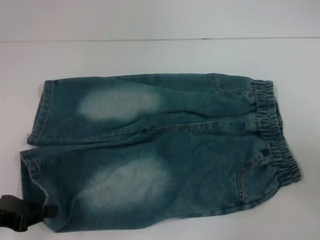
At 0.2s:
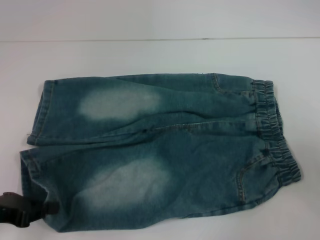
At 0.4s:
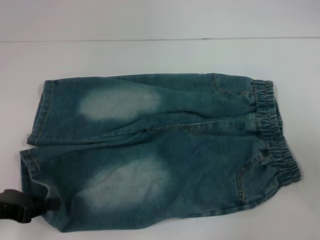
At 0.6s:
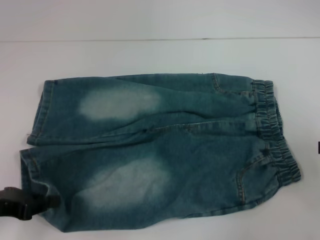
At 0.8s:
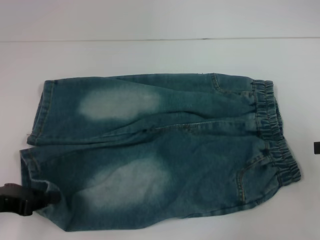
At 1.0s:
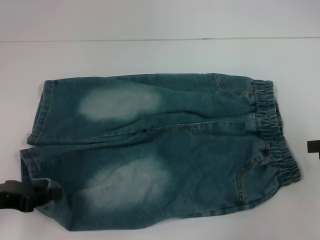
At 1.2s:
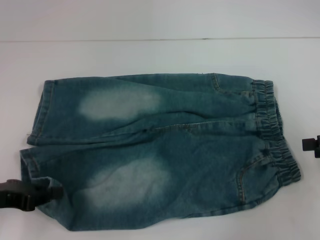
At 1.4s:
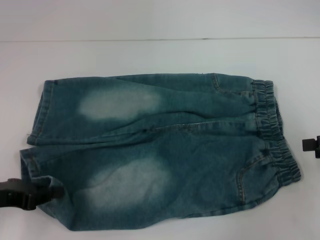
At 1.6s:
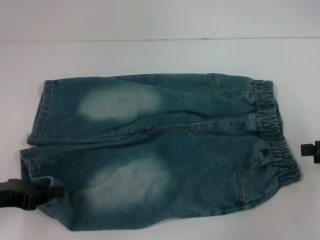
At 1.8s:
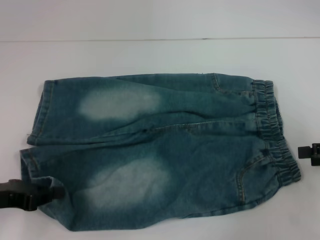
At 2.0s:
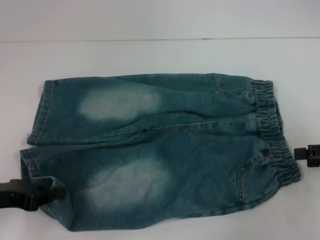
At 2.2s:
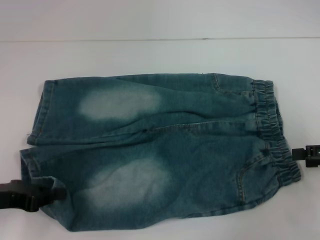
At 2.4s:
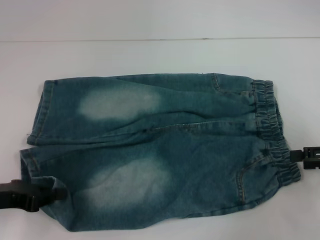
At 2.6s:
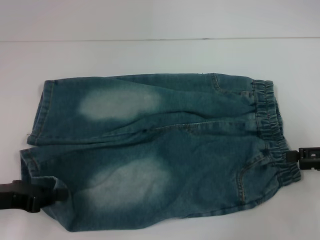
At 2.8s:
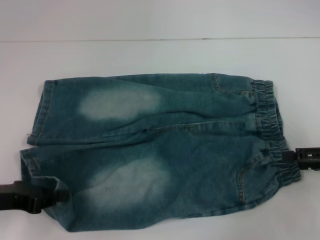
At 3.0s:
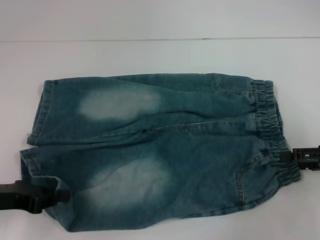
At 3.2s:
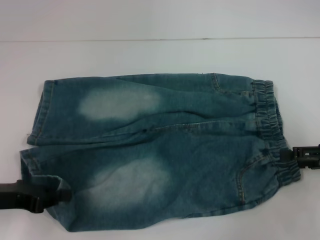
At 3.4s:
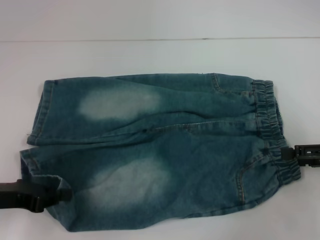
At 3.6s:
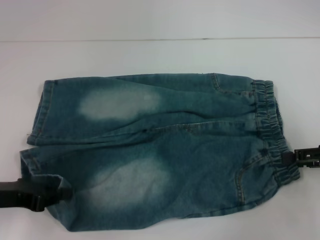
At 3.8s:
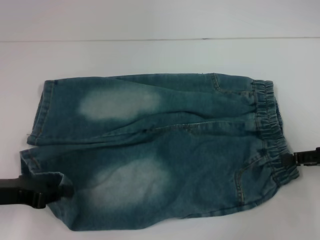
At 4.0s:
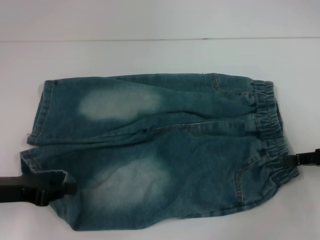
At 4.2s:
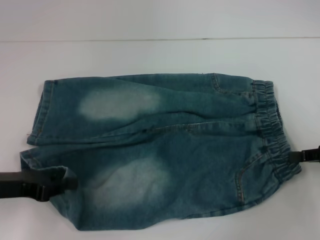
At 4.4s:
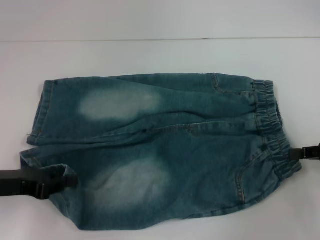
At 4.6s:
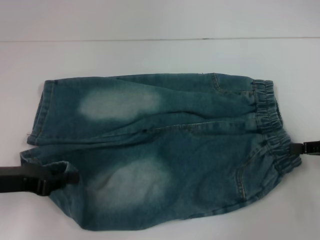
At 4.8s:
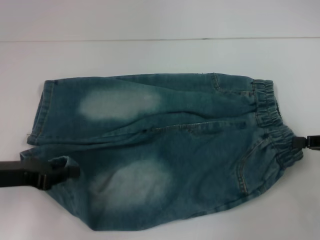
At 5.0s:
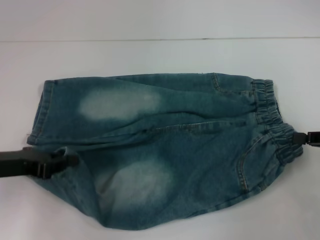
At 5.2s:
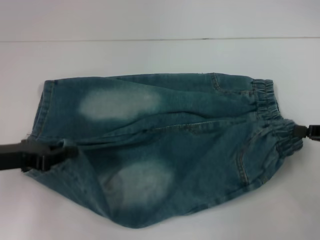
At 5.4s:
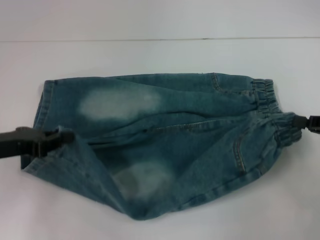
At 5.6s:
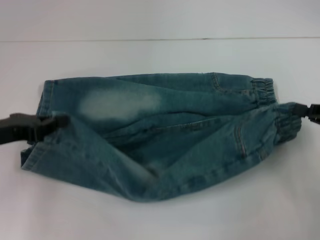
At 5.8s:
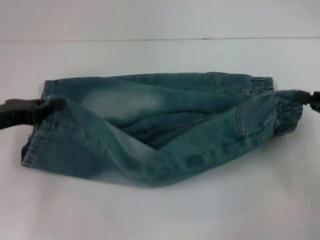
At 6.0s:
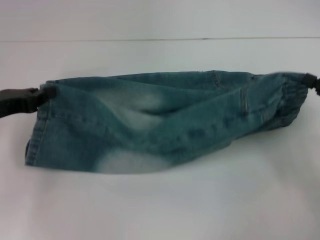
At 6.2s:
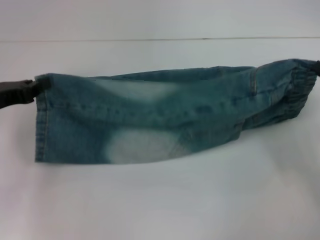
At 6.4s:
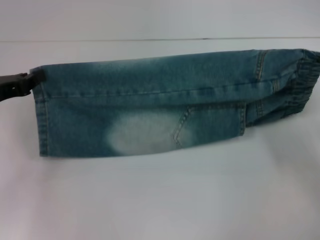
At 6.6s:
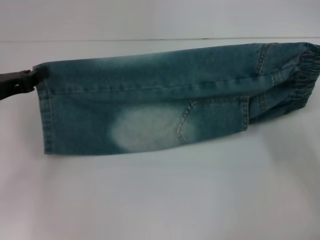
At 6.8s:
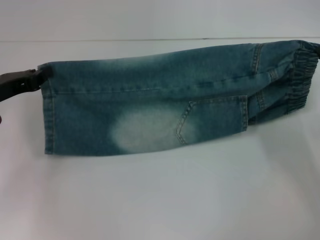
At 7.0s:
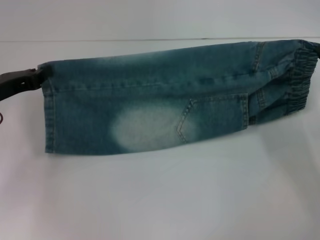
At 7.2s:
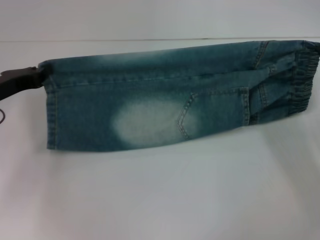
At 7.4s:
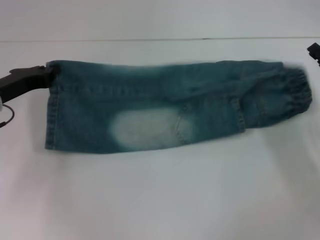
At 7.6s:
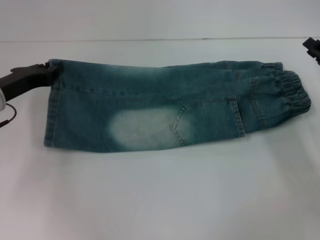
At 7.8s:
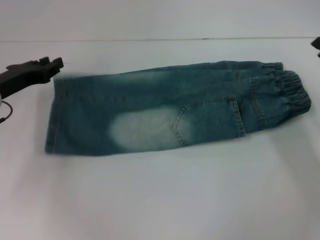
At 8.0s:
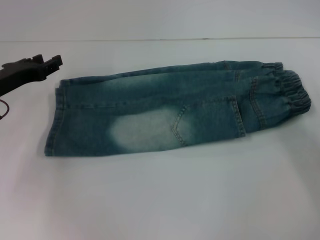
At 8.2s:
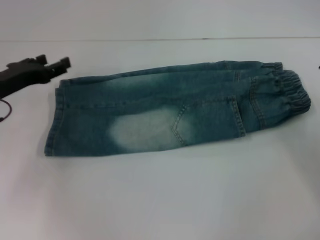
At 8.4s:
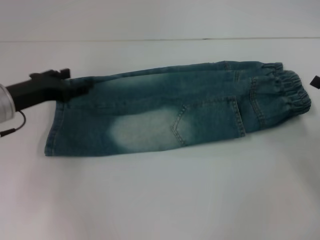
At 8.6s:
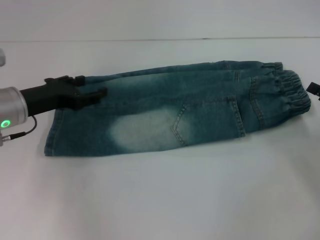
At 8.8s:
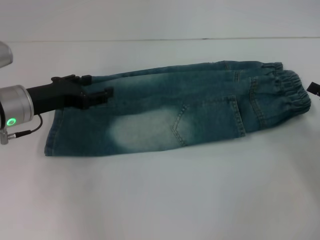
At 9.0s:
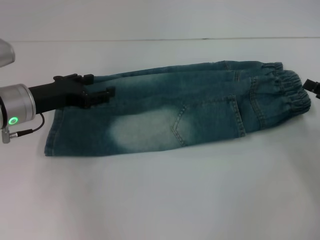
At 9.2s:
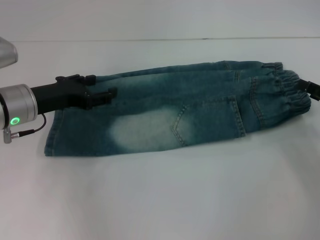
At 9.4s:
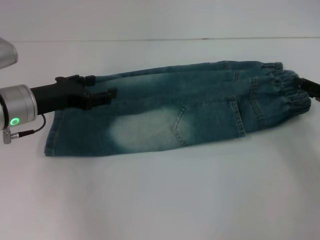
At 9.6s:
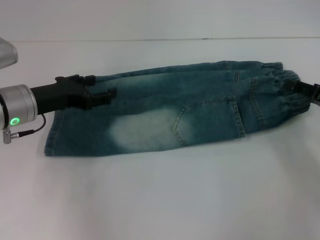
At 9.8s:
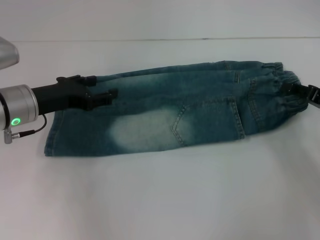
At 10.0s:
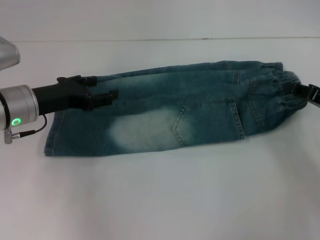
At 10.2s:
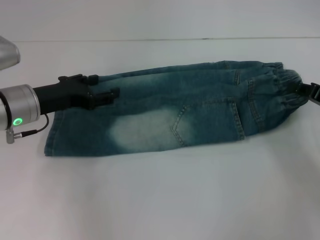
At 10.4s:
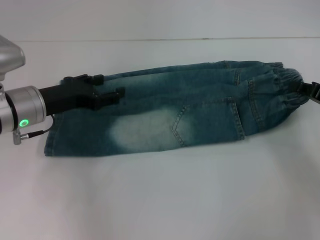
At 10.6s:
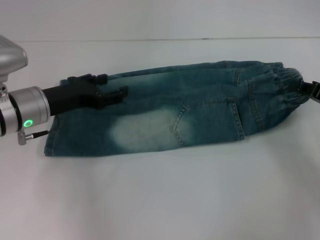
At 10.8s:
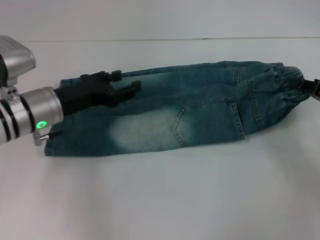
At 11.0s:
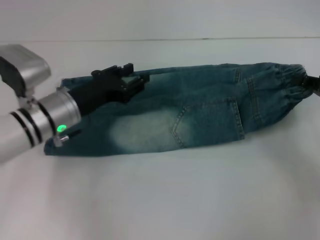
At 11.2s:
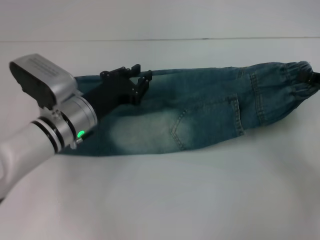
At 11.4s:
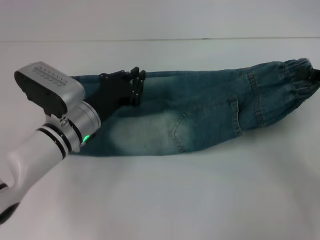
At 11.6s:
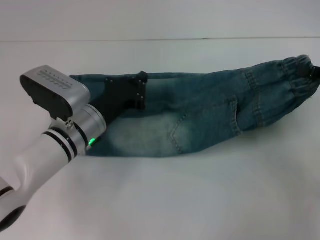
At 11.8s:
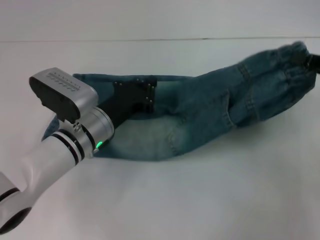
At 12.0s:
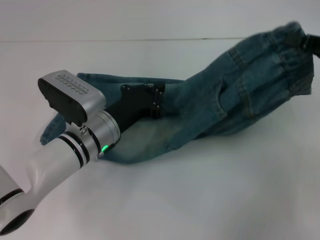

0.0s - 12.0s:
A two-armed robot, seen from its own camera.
Step, 0.0s - 3.8s: Hold the lower right waistband with your right hand.
Step, 4.0s - 7.2s: Fold upward with your right hand.
Step, 7.6s - 7.8s: Fold upward with your left hand.
Step, 8.0s - 10.0s: Grab the waistband with your right hand.
0.0s - 1.6s: The grippers move only a little.
1.6s - 3.0s: The grippers move only a little.
3.0s - 4.4s: The right gripper closes up.
4.4s - 6.0s: The left gripper heads forward, covering some 5 cm.
6.0s - 7.6s: Both grippers move forward, about 5 cm.
7.6s - 9.0s: The left gripper opens its fingers. The right gripper ends up some 5 cm from where it was, and opens.
9.0s - 10.4s: The right gripper closes its fingers.
10.4s - 12.0s: The left gripper travels to the right and downward by about 10 cm, and closes its fingers; the right gripper travels upward by about 10 cm.

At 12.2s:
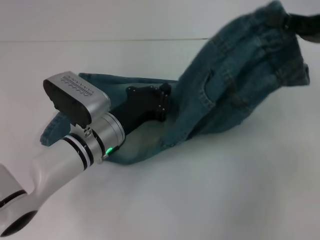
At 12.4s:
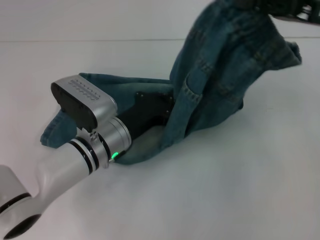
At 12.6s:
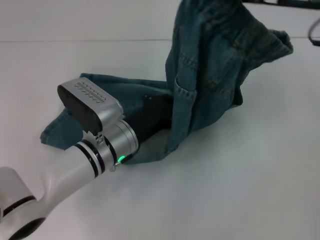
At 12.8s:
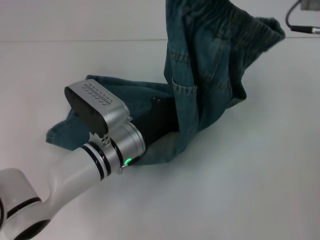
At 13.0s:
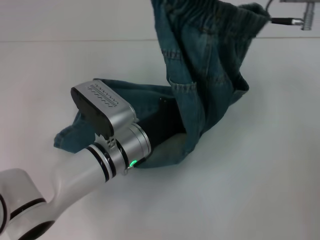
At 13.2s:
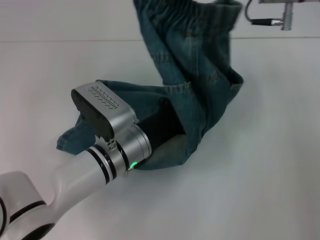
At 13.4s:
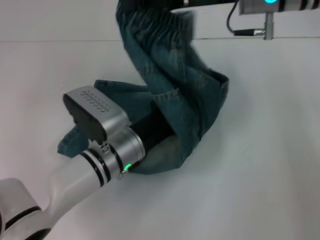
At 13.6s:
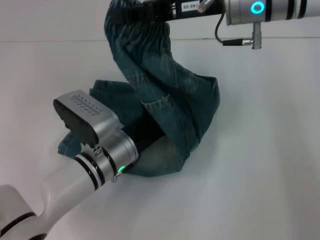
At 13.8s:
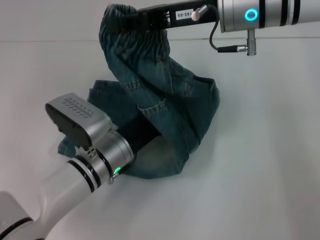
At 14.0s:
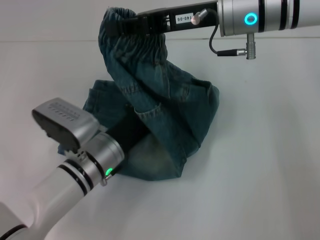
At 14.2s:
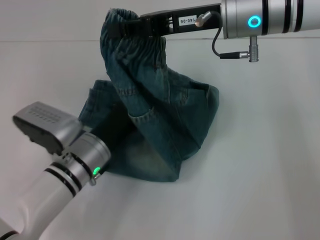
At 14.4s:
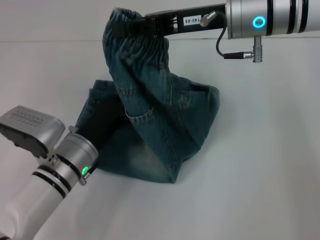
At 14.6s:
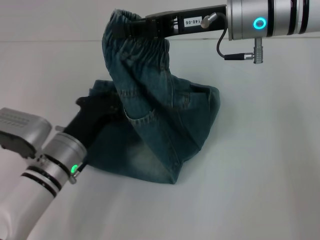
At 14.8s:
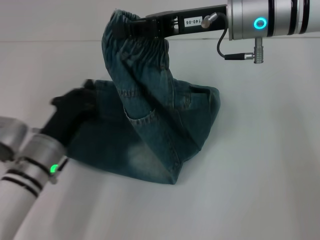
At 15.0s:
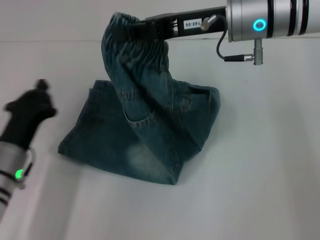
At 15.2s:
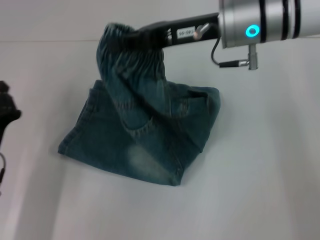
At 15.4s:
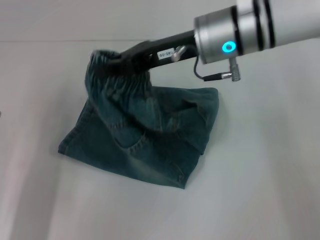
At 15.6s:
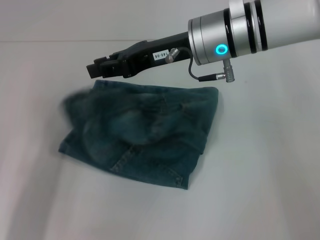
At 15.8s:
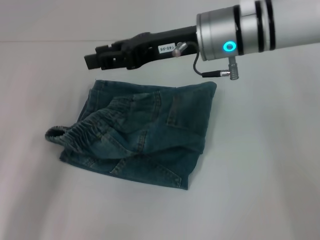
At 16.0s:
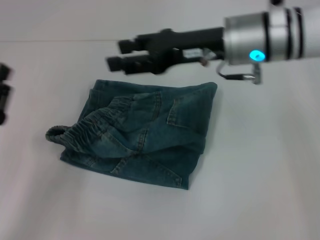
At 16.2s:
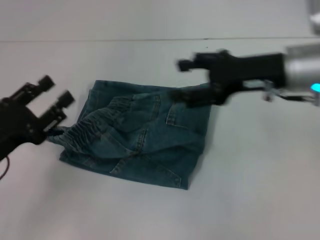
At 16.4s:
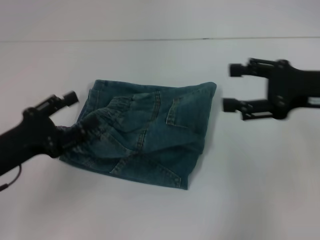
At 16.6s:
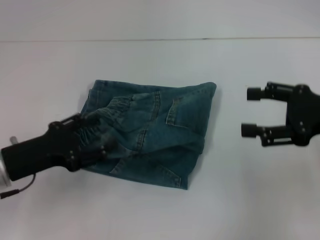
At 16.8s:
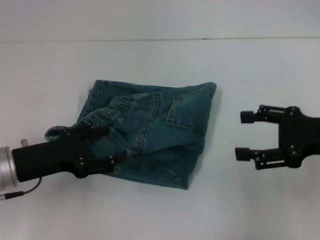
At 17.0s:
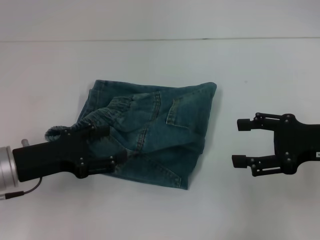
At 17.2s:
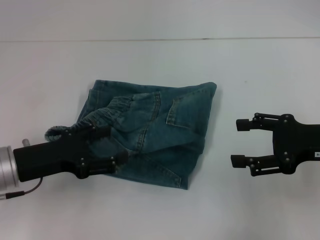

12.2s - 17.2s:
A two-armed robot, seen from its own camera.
Step, 14.0s - 15.6s: Fold to the left with your right hand.
12.2s - 13.8s: The right gripper heads to the left, covering some 20 cm.
13.8s - 15.6s: The left gripper is displaced to the left and backward by some 20 cm.
15.6s - 17.2s: The right gripper is displaced to the right and backward by about 25 cm, and opens. Meanwhile the left gripper moves some 5 cm, and opens.
